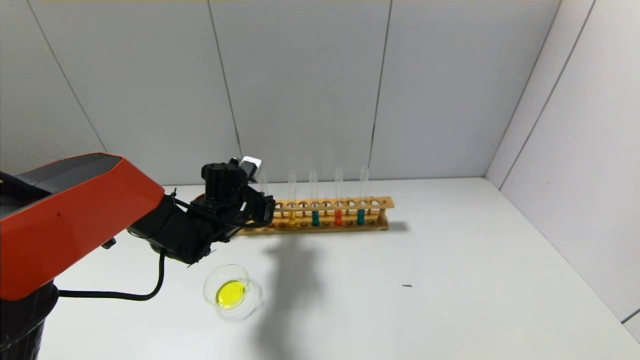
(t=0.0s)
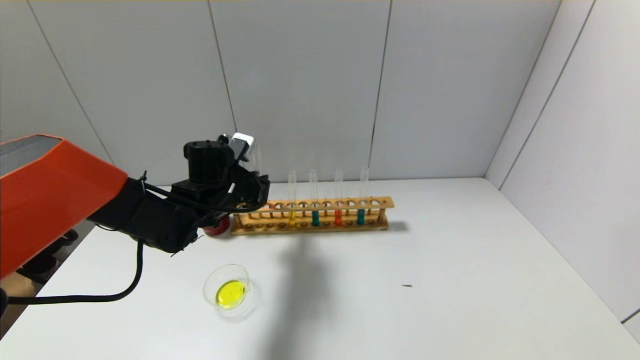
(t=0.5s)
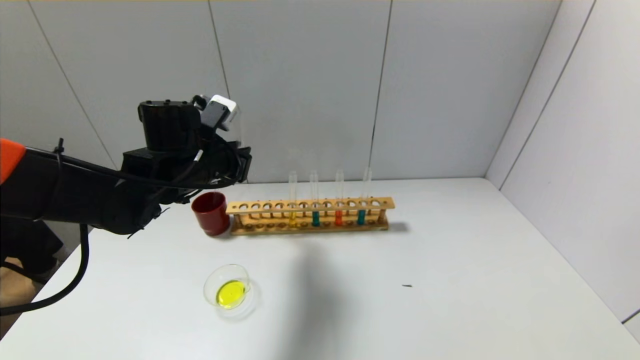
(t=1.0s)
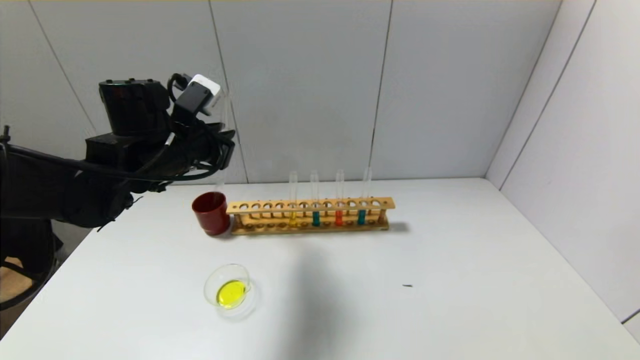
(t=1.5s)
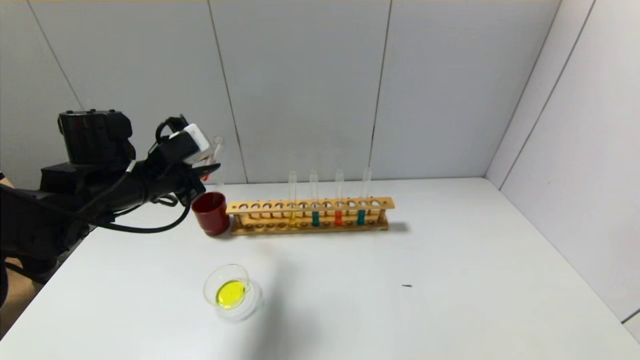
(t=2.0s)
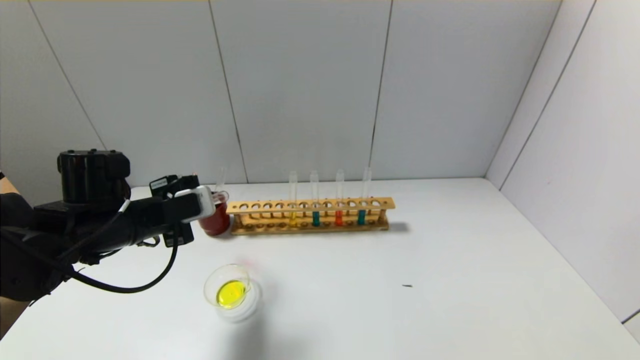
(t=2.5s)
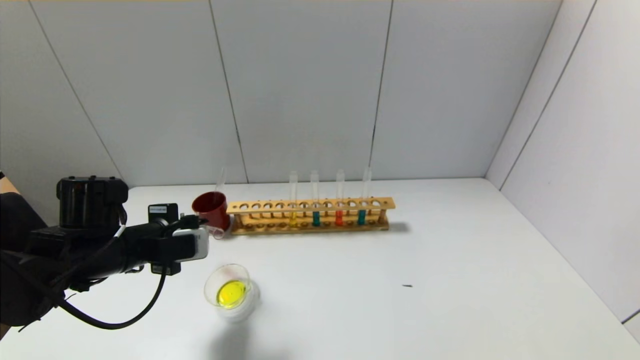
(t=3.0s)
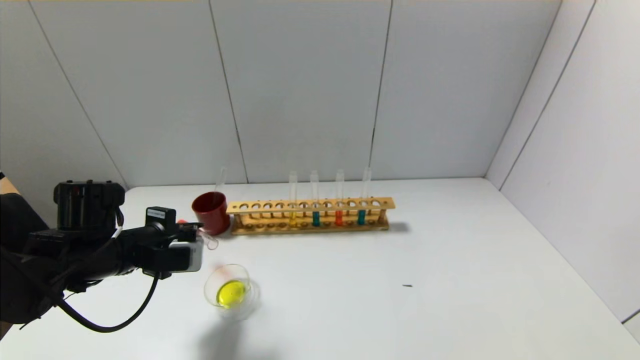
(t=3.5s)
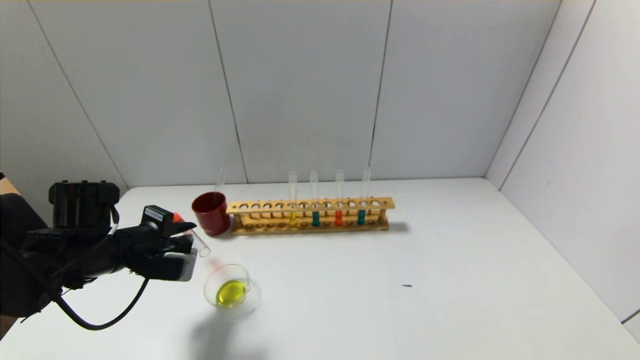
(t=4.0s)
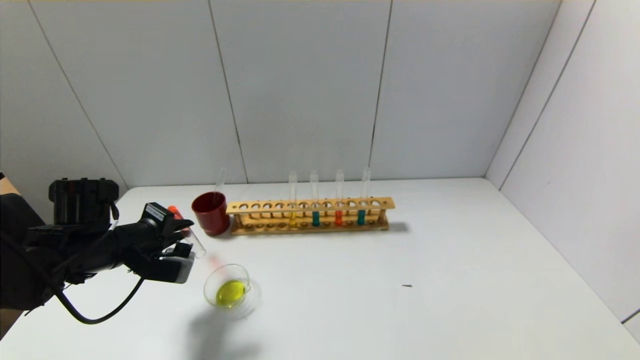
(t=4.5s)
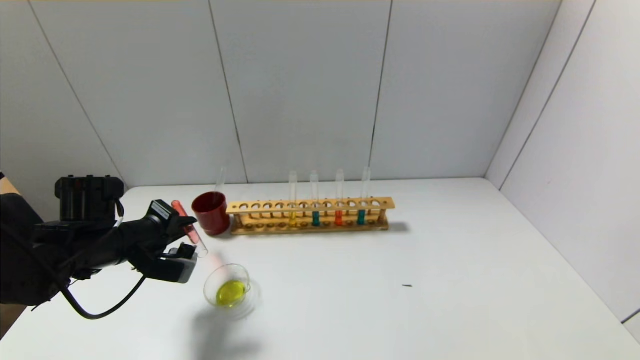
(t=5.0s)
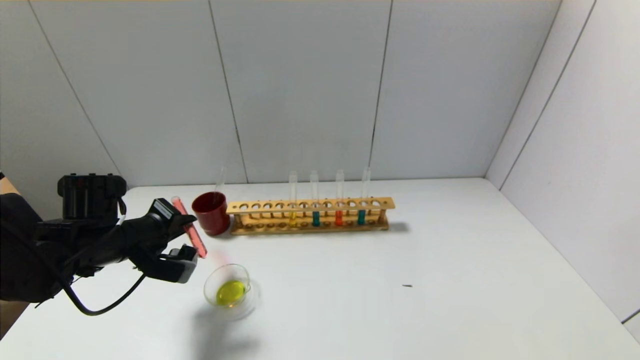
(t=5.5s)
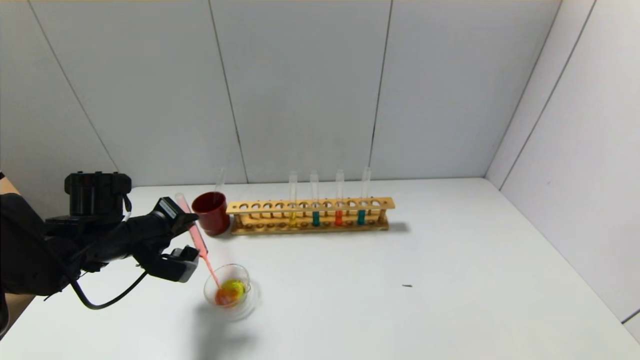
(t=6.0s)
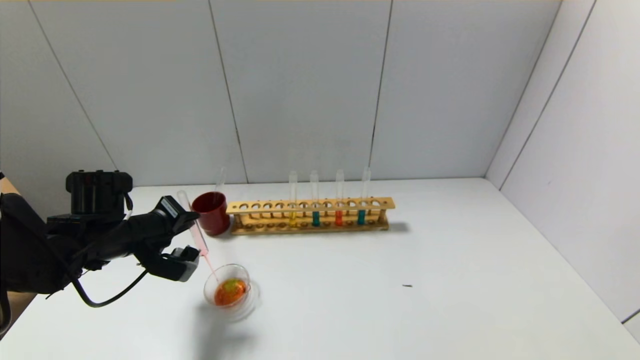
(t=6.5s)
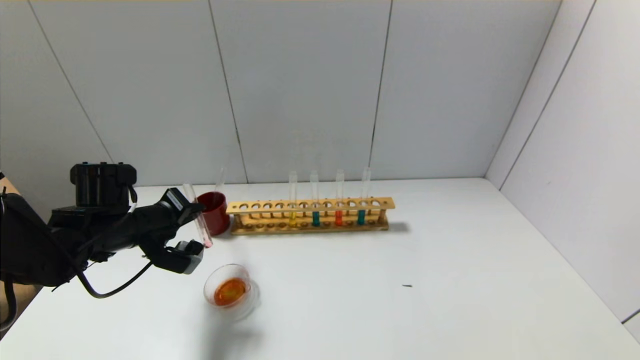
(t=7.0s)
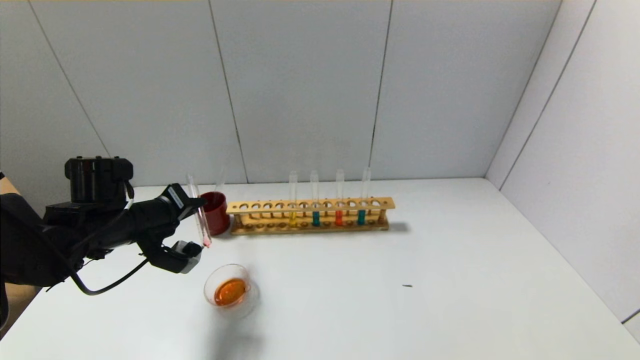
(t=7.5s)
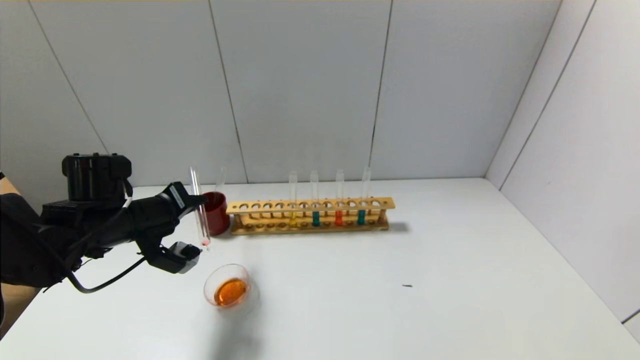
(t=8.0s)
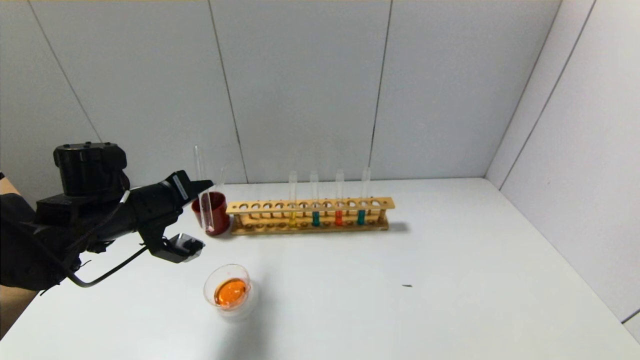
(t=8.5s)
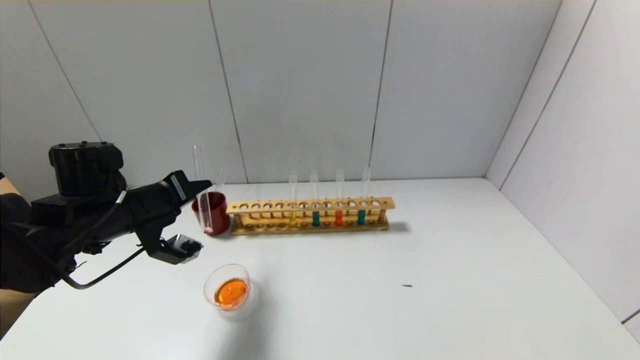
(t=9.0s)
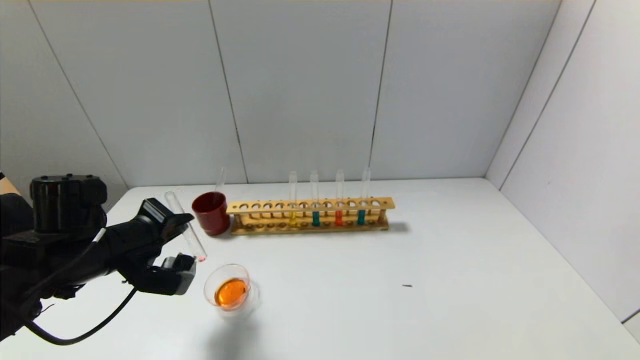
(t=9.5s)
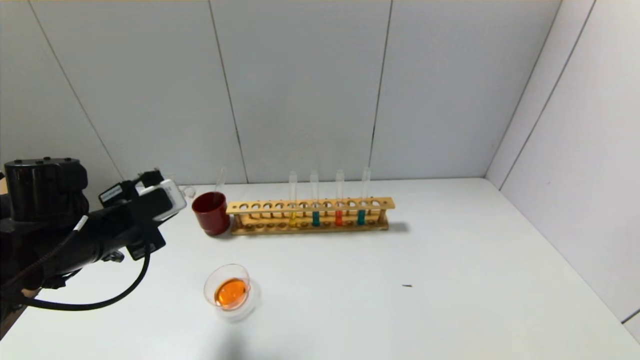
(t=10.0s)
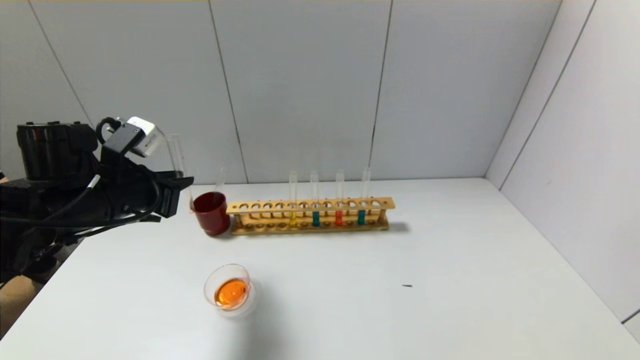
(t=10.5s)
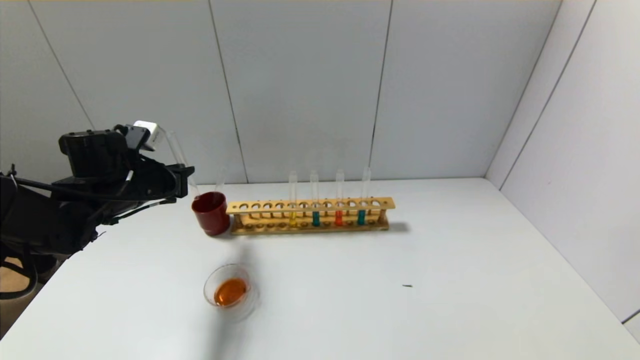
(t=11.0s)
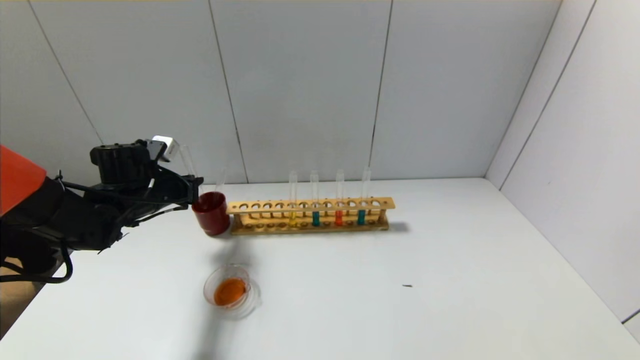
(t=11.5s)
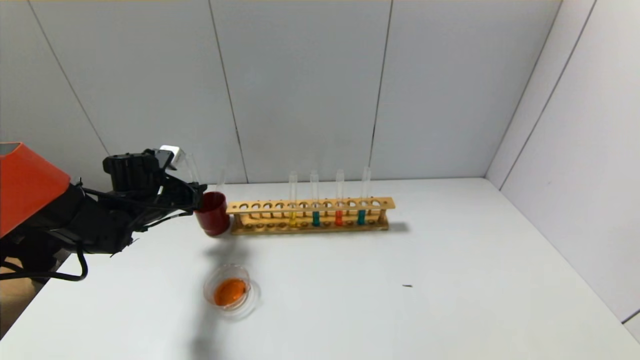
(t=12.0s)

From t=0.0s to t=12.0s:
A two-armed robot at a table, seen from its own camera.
Step, from t=0.0s to t=9.5s: Pour the red reagent into the graduated cylinder with the left gripper.
From t=0.0s to t=2.0s: The left gripper is displaced upward, to the left and backward by roughly 15 cm.
From t=2.0s to t=4.0s: The left gripper moves downward, approximately 10 cm.
From t=6.0s to t=8.0s: The grippers stay close to where they were, moving slightly.
From t=8.0s to t=10.0s: The left gripper is displaced backward by roughly 5 cm.
From t=10.0s to t=12.0s: The left gripper moves forward and downward, approximately 15 cm.

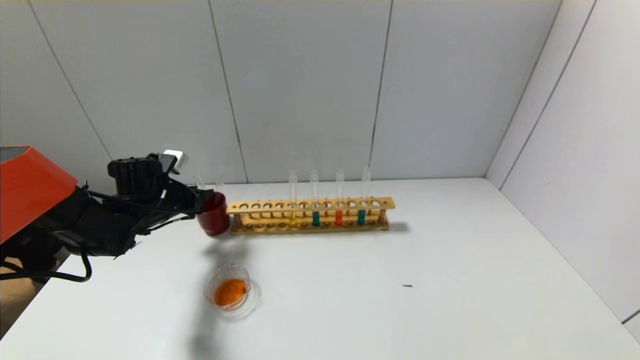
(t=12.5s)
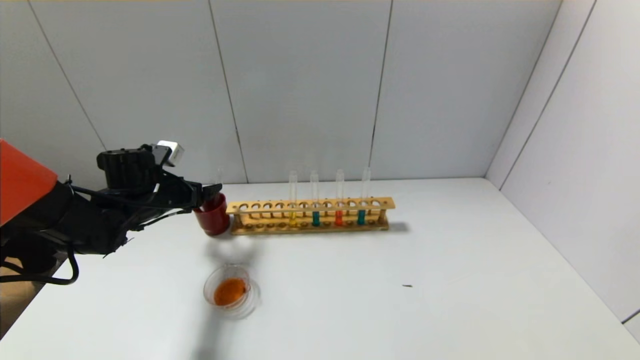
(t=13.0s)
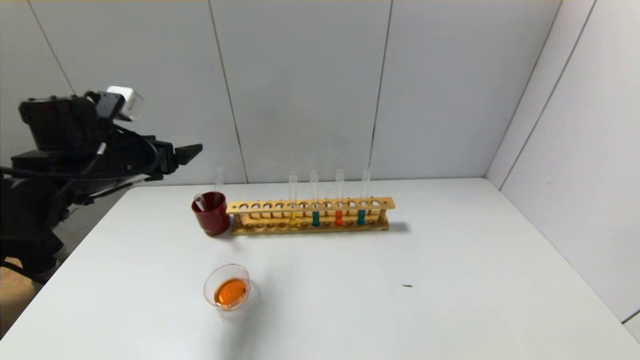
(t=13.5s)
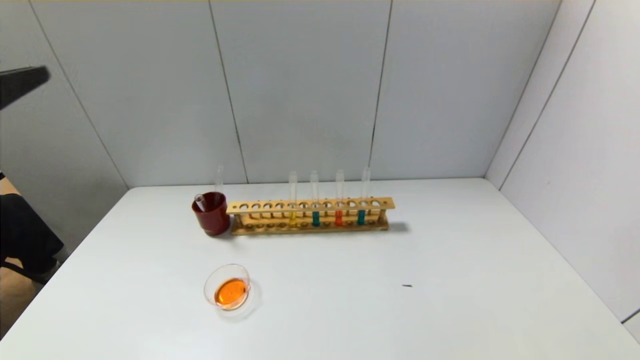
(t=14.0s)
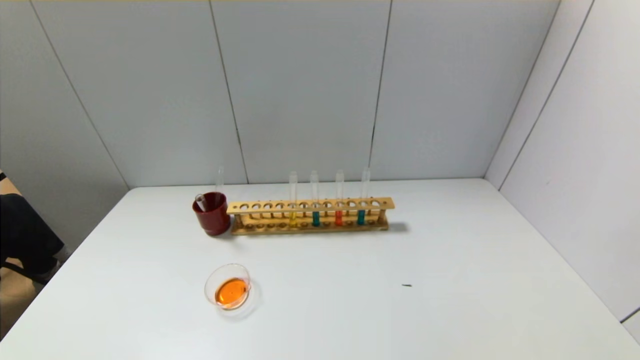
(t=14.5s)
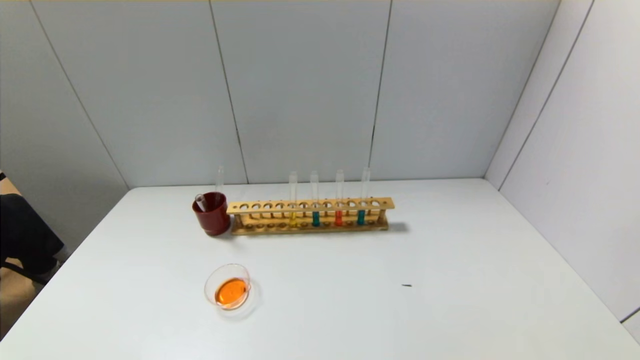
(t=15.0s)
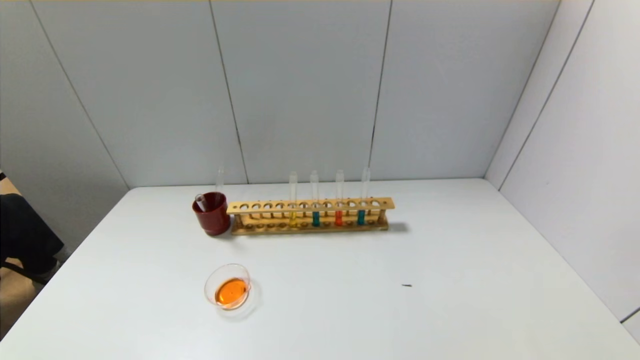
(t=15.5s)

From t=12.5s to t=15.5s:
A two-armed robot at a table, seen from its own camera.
From t=12.5s to t=14.0s: The left gripper moves backward and upward, approximately 40 cm, and opens up.
From t=14.0s to t=15.5s: The left gripper goes approximately 30 cm downward and backward.

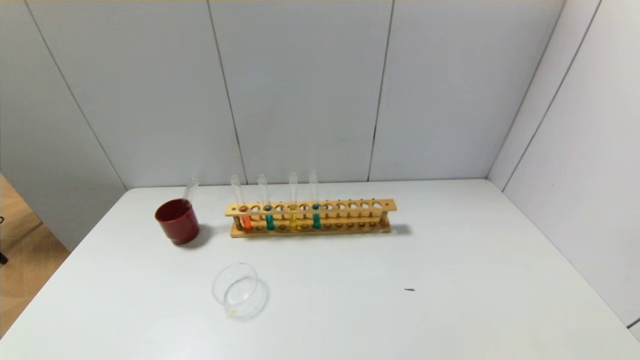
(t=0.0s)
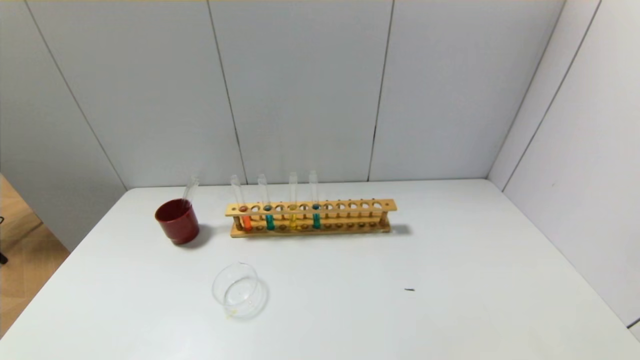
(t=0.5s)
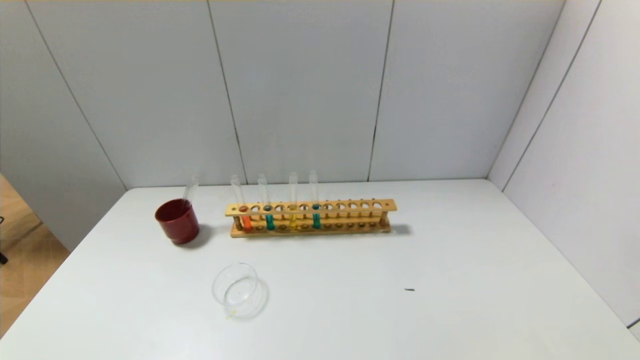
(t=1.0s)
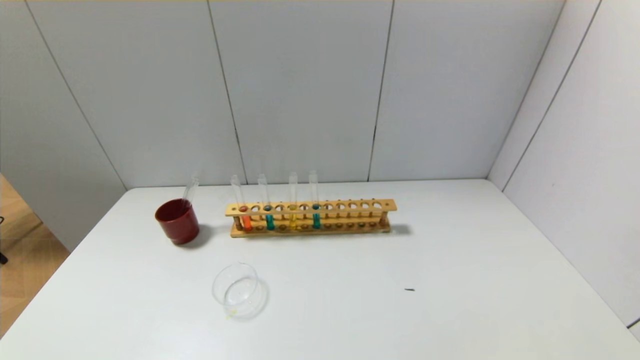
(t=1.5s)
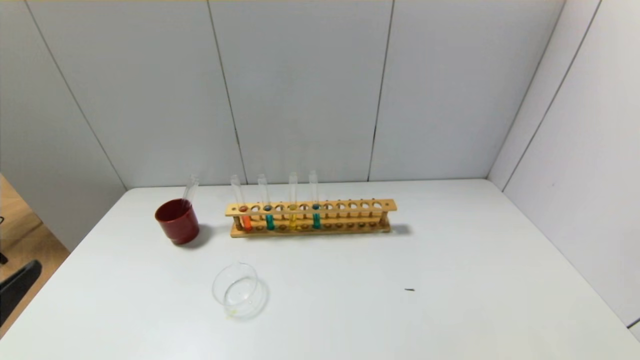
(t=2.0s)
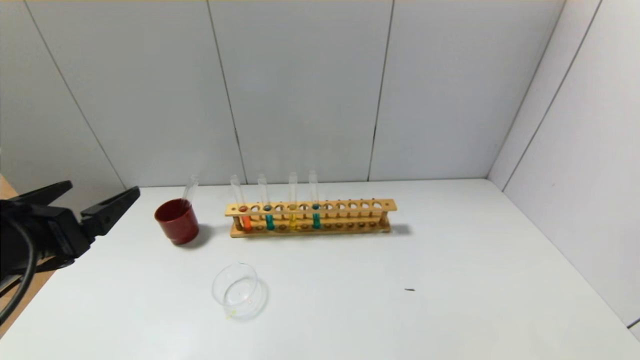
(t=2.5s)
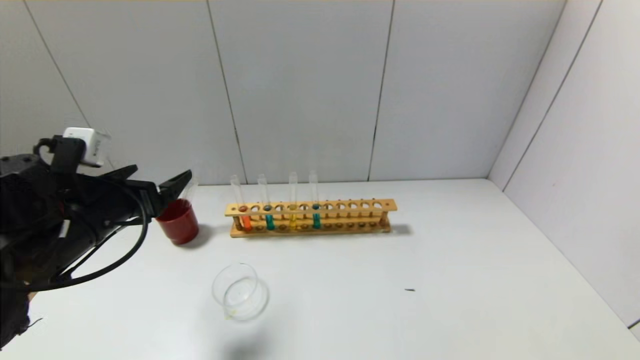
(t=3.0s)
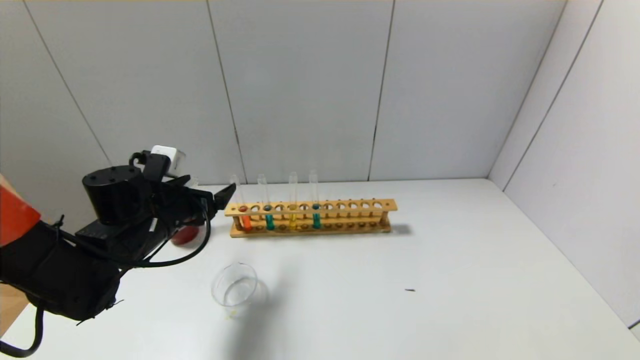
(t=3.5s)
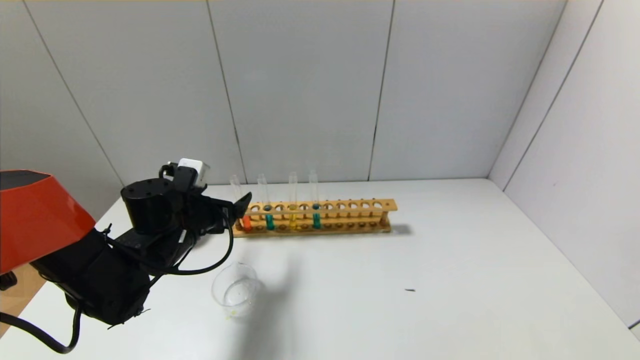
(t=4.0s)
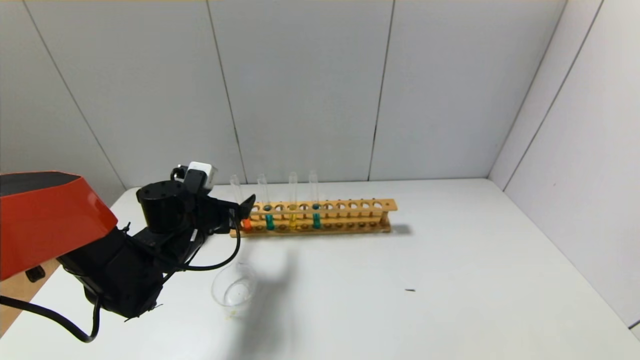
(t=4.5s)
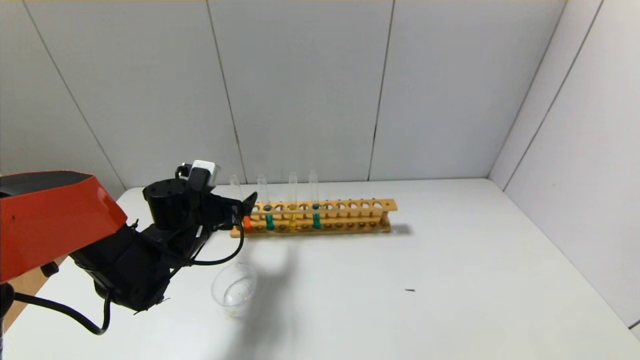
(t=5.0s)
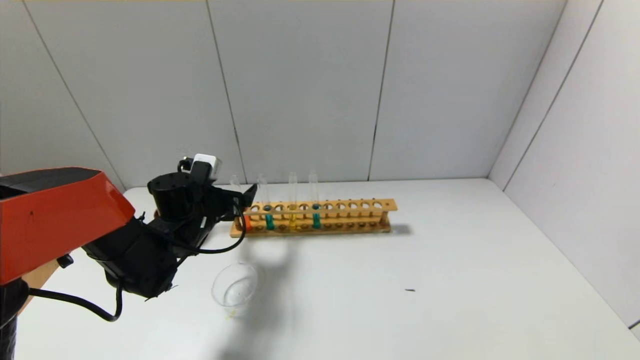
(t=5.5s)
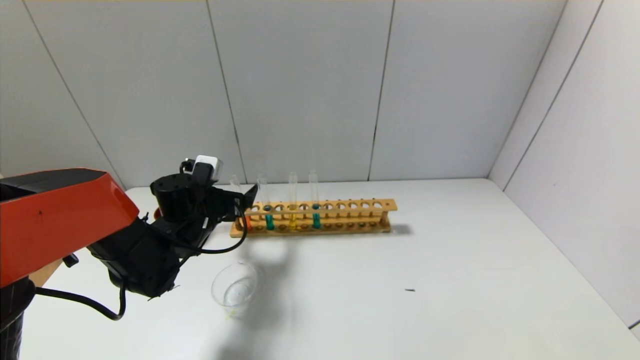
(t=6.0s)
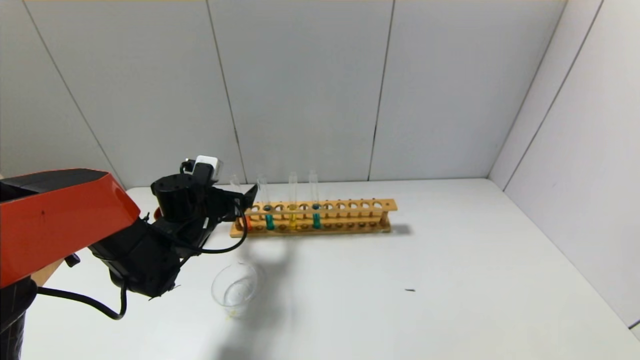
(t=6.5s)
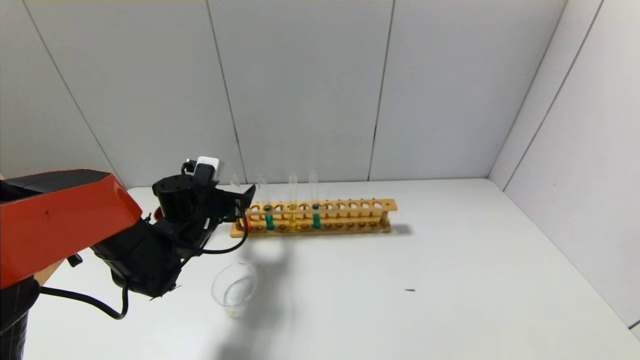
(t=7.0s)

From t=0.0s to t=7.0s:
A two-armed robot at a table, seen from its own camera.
From t=2.0s to t=3.5s: The left gripper is displaced forward by roughly 25 cm.
From t=3.5s to t=5.0s: The left gripper moves approximately 5 cm.
From t=5.0s to t=7.0s: There are only small adjustments of the grippers.
